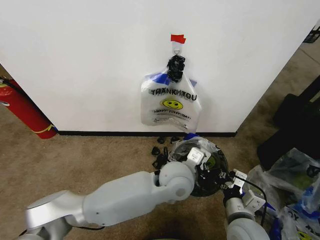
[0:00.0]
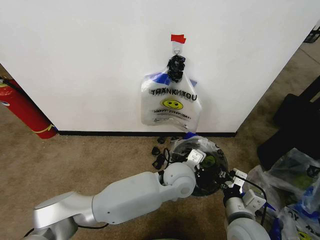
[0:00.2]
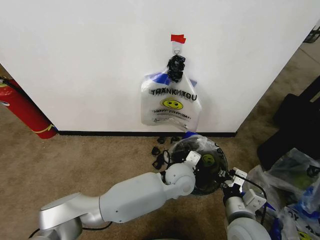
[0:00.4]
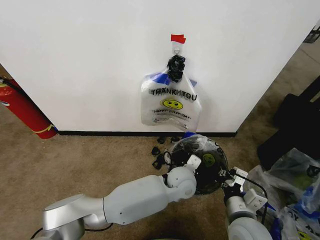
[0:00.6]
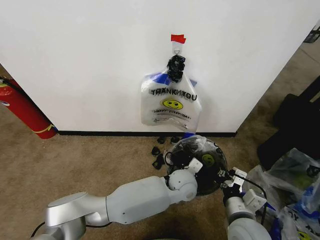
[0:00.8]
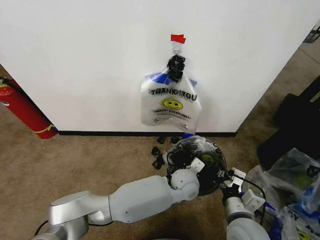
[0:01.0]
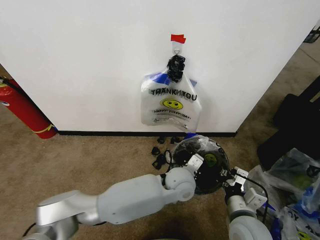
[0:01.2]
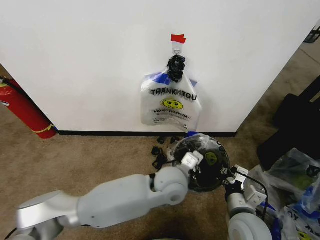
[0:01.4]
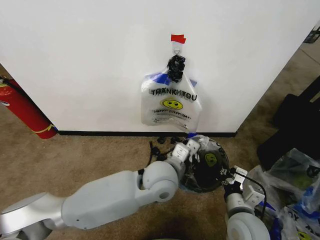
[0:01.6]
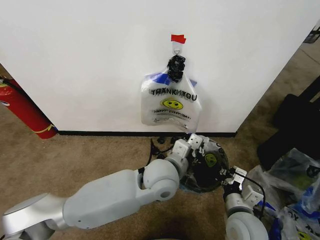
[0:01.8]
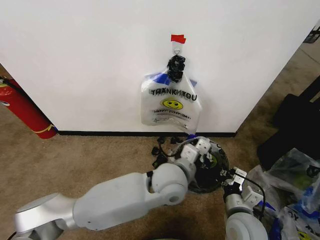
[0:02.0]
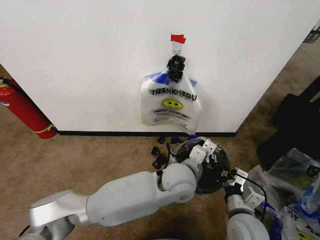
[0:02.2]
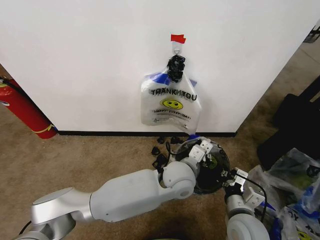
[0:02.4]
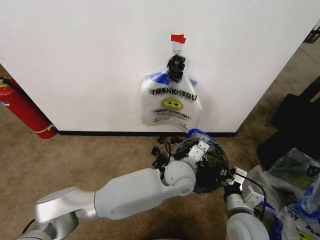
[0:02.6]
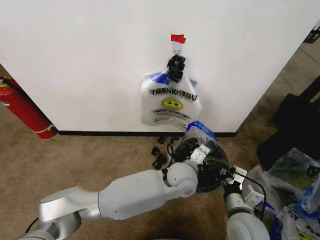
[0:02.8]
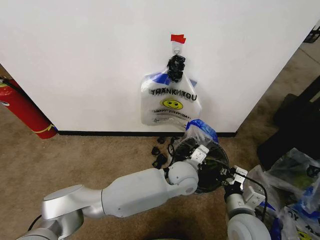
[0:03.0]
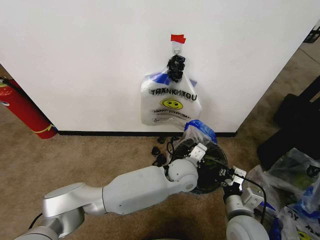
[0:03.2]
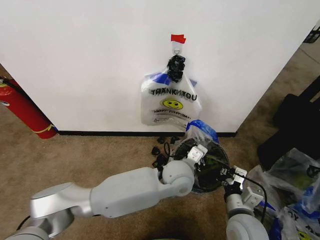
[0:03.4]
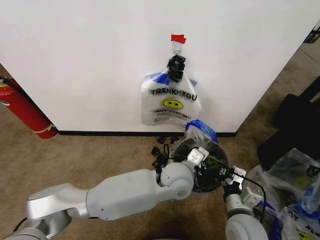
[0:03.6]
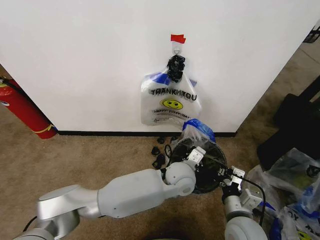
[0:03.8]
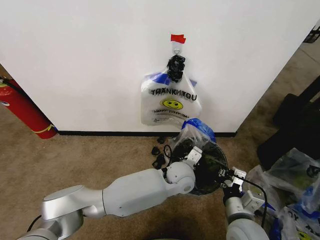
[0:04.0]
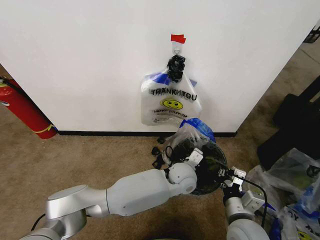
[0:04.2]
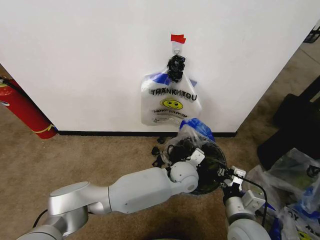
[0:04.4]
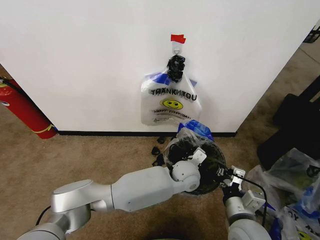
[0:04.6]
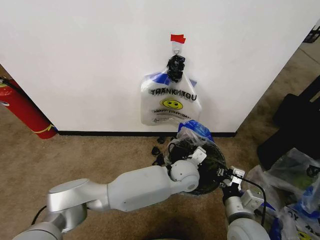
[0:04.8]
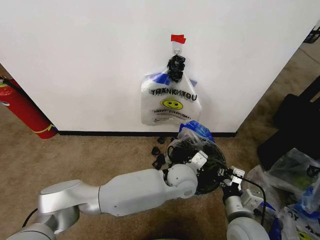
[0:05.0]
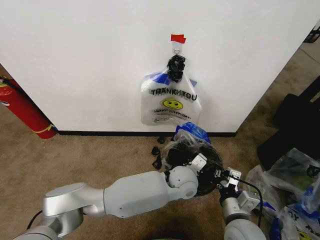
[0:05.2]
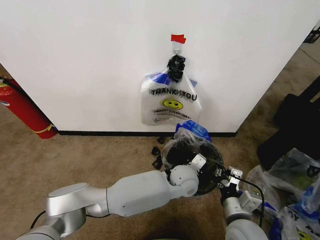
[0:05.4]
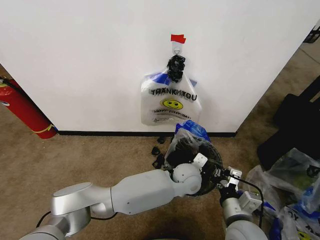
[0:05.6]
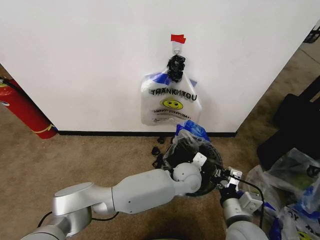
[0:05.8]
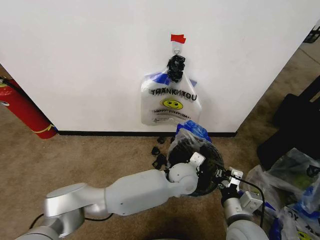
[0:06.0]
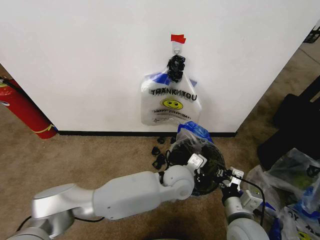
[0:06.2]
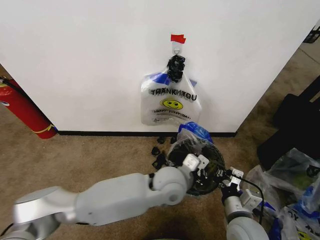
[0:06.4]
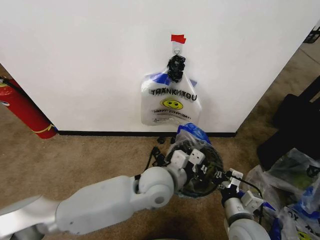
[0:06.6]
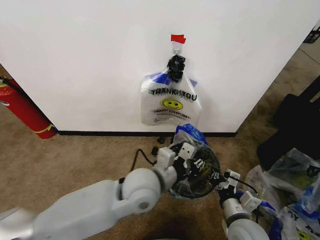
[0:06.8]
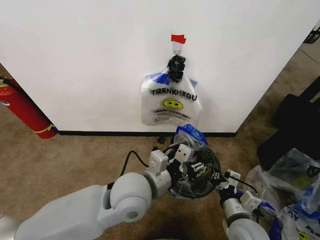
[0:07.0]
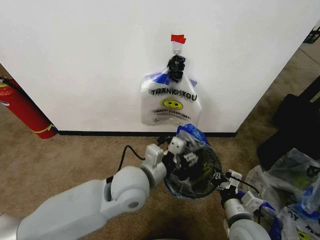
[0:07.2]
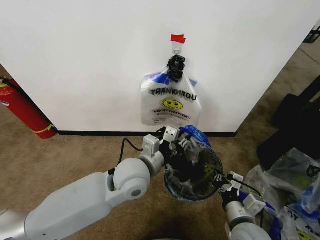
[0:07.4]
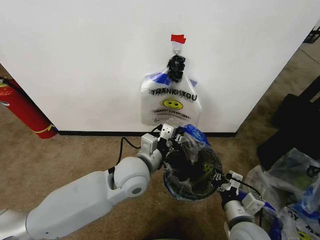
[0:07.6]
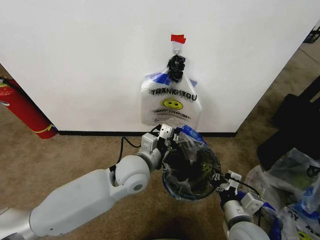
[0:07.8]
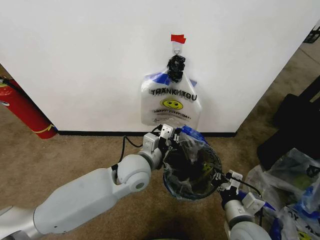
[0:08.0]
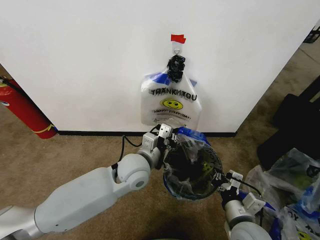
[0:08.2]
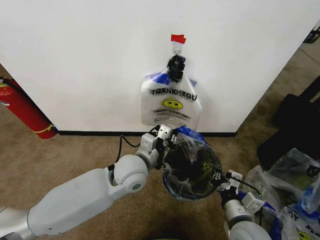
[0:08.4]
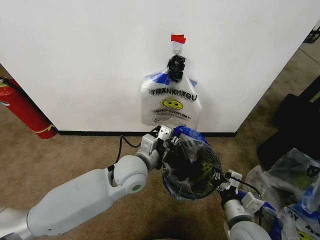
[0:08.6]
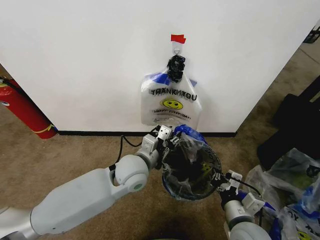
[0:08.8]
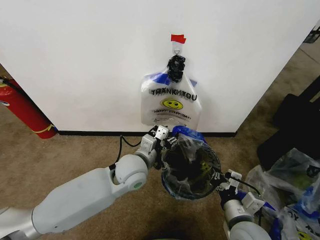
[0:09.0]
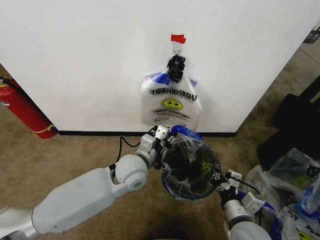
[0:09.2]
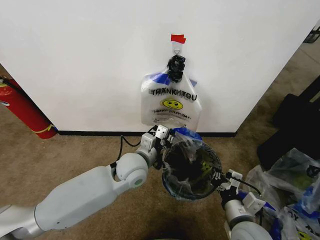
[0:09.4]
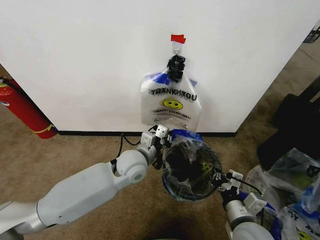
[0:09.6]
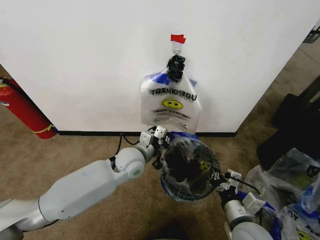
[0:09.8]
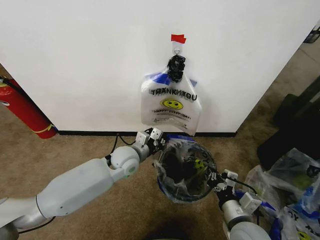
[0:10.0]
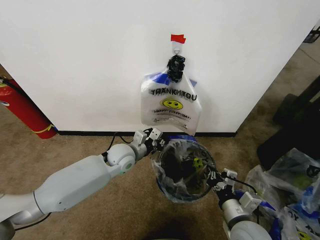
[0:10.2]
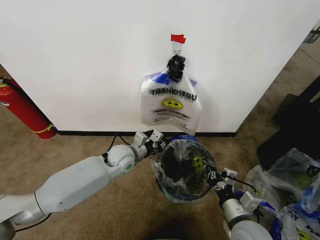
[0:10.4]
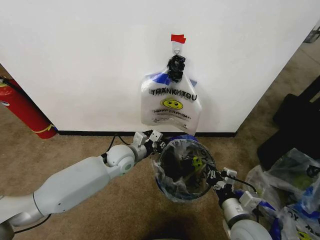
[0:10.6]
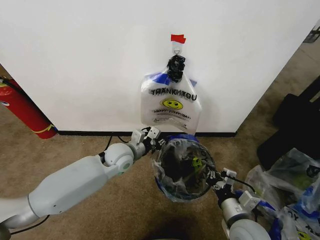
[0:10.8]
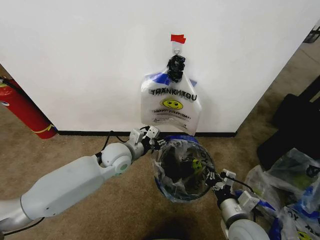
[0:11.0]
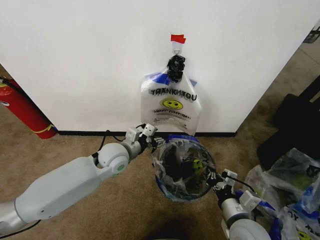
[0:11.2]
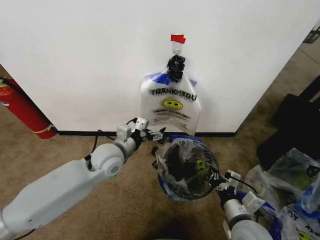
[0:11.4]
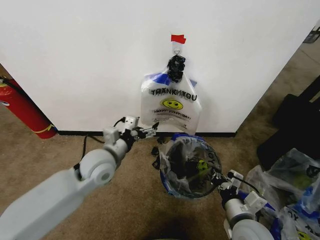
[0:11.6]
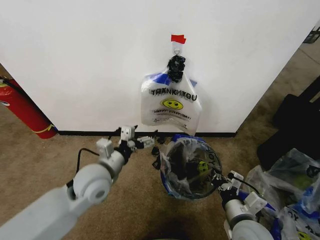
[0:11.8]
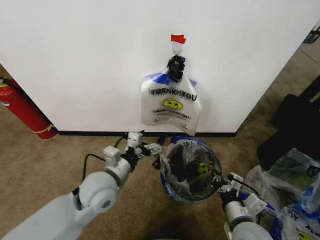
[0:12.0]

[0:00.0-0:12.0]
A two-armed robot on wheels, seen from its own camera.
Task of the whole recording: Pick up the garbage bag from the wall and place it over the trash bin.
0:00.0 to 0:01.6: The left gripper reaches some 10 cm downward, then returns.
0:01.6 to 0:03.0: The left gripper moves to the right and downward, about 10 cm.
0:03.0 to 0:06.0: The grippers move only a little.
0:06.0 to 0:07.6: The left gripper is displaced to the left and upward by about 20 cm, and opens and closes again.
0:07.6 to 0:09.0: The left gripper changes place by approximately 5 cm, and opens.
0:09.0 to 0:10.4: The left gripper goes approximately 10 cm forward and to the left, and closes its fingers.
0:10.4 to 0:12.0: The left gripper heads backward, covering roughly 15 cm, and opens.

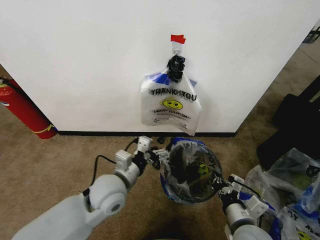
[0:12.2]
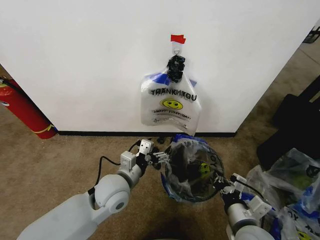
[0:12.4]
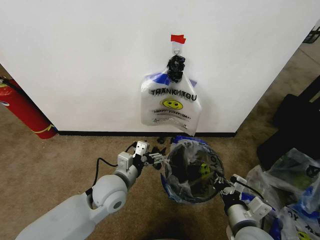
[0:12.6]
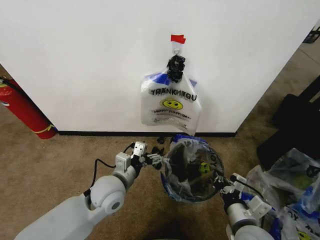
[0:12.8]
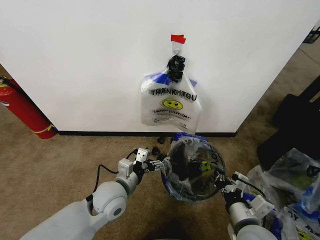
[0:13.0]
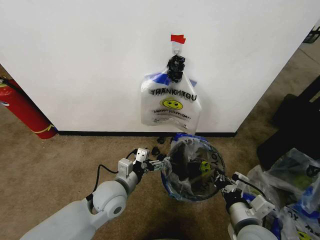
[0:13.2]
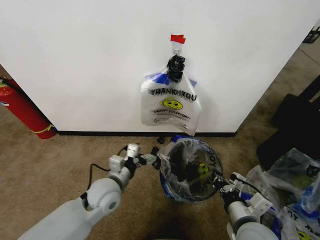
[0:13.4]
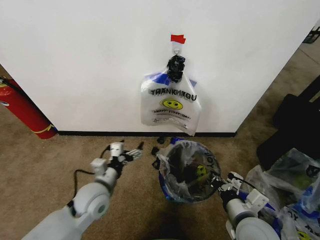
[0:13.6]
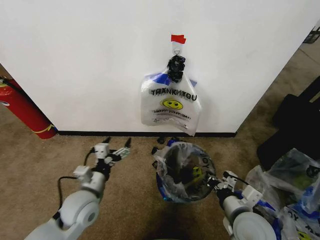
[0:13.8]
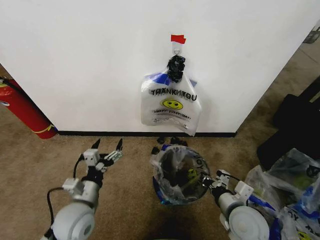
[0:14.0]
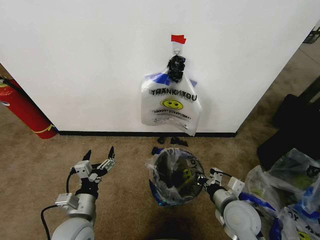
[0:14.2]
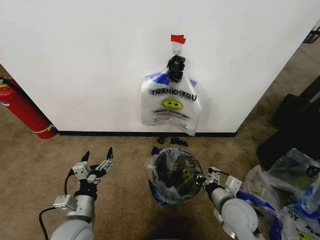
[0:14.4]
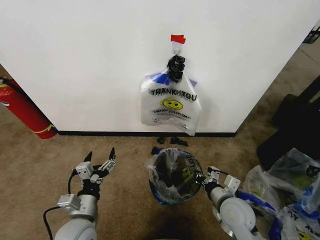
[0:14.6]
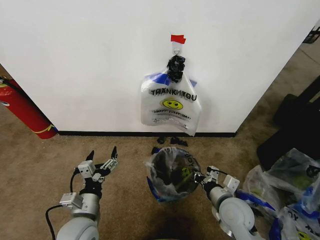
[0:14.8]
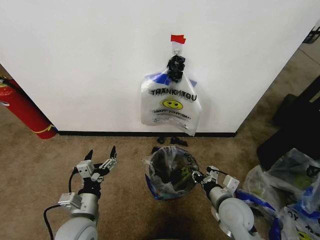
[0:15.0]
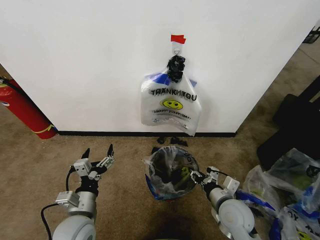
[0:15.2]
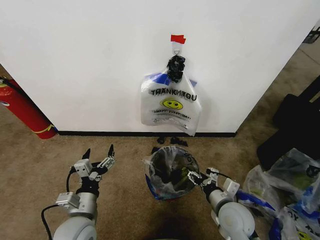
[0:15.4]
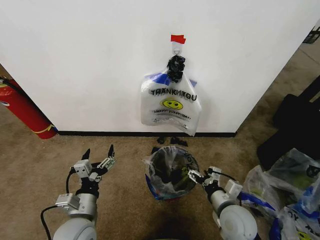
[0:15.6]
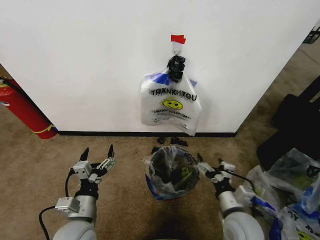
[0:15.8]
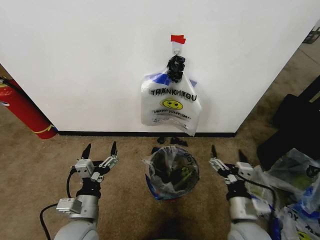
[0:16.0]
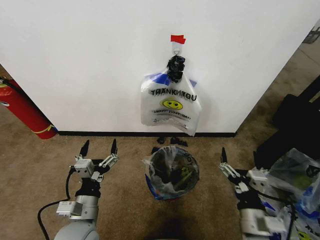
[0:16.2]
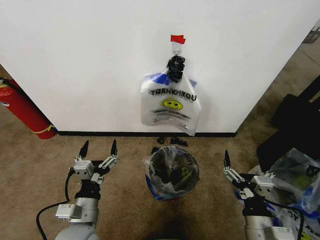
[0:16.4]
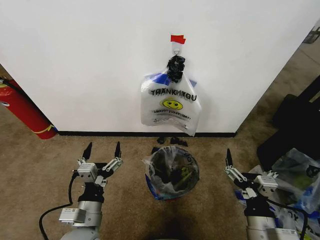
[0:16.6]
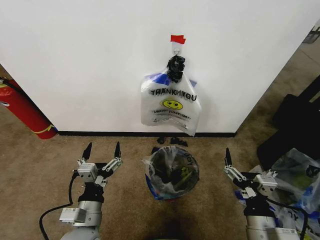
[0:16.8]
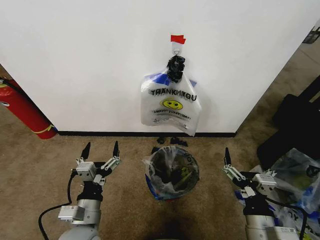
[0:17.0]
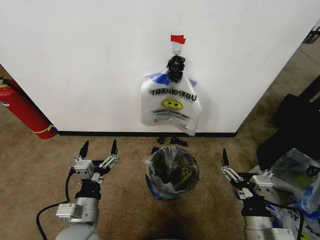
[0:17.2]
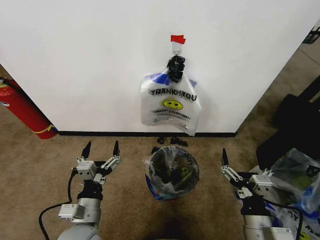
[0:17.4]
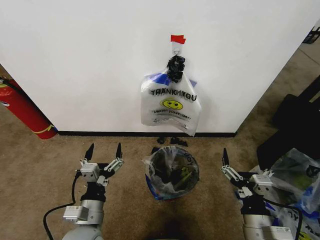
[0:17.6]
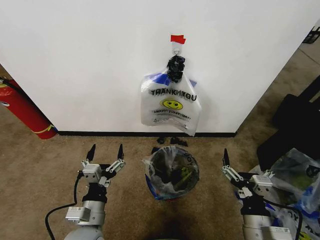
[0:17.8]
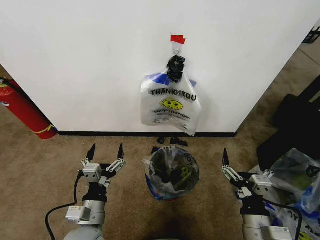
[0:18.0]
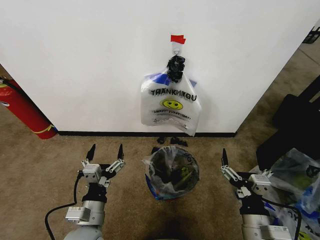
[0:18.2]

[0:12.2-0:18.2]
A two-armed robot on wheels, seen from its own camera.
Task of the whole recording: Pick up the garbage bag from the wall and place it over the trash bin.
0:12.2 to 0:13.8: The left gripper shifts about 10 cm to the left and downward.
0:13.8 to 0:15.2: The left gripper shifts some 5 cm backward; the right gripper travels forward by about 5 cm, and opens up.
0:15.2 to 0:16.6: The right gripper travels backward by some 10 cm, and opens up.
0:16.6 to 0:18.2: The grippers make only small movements.
